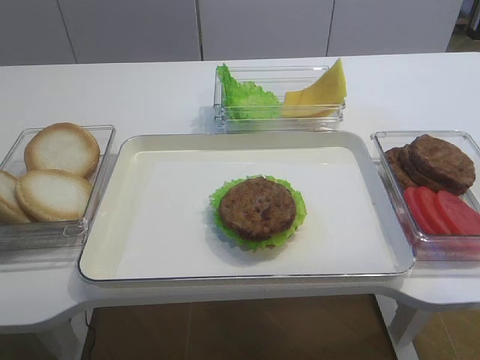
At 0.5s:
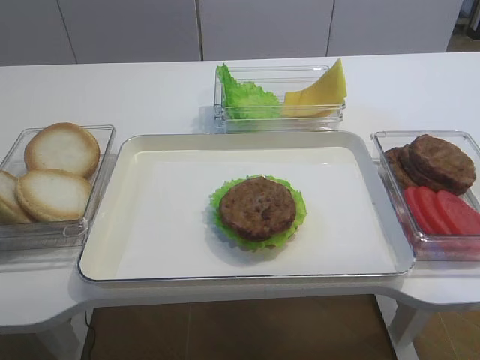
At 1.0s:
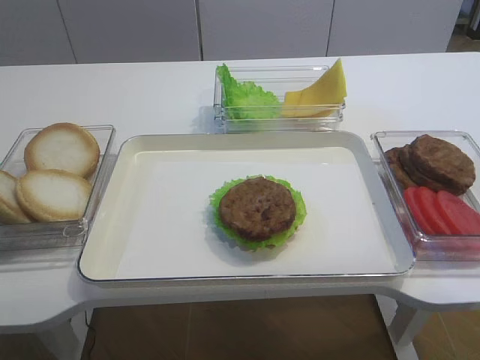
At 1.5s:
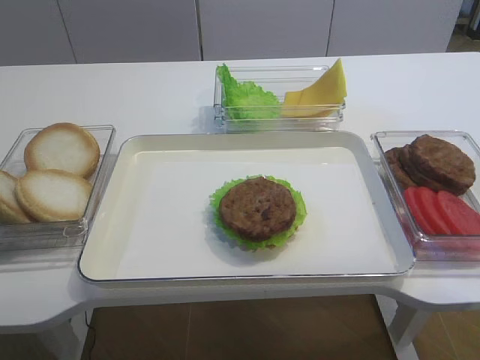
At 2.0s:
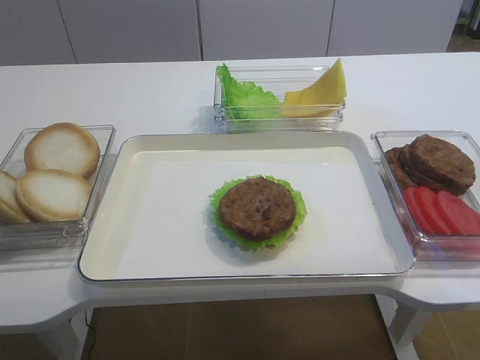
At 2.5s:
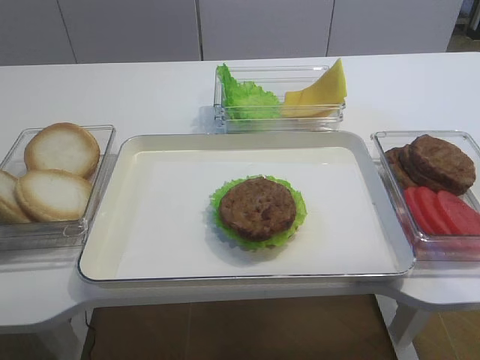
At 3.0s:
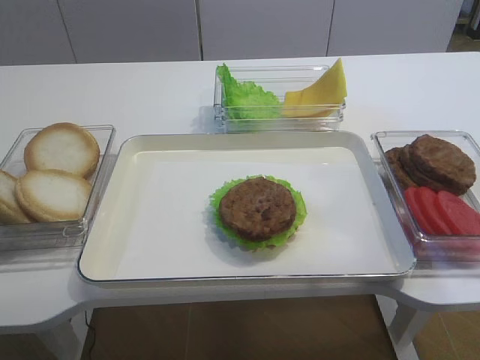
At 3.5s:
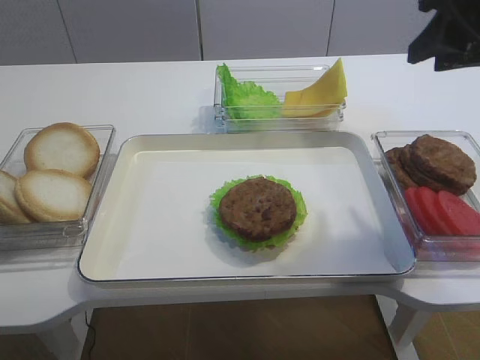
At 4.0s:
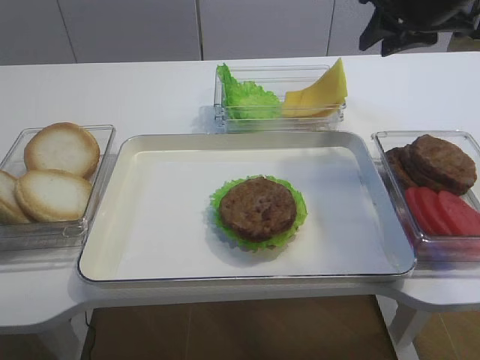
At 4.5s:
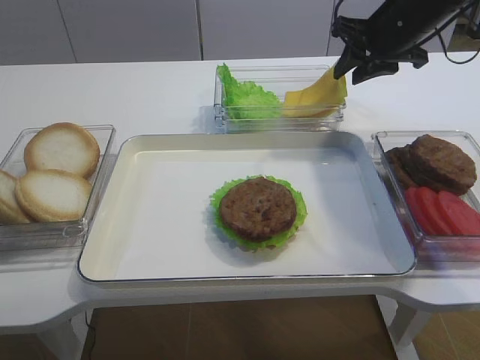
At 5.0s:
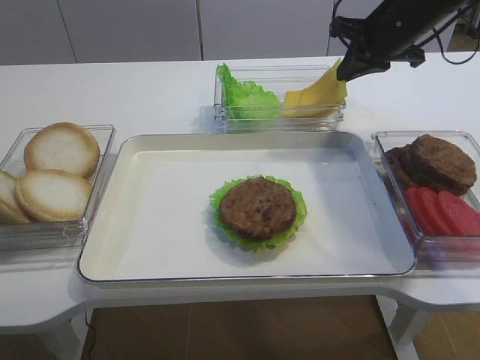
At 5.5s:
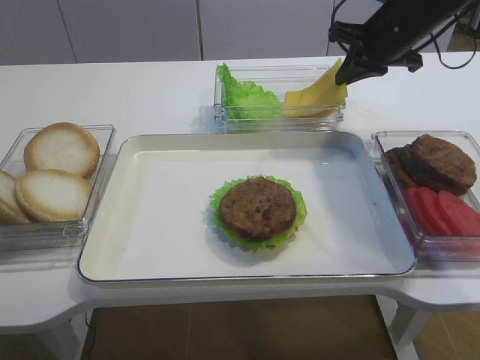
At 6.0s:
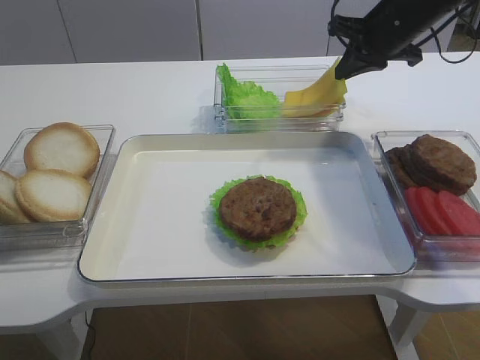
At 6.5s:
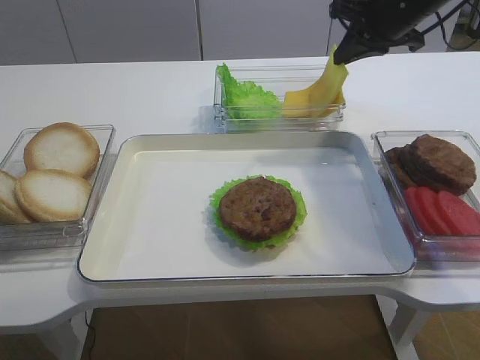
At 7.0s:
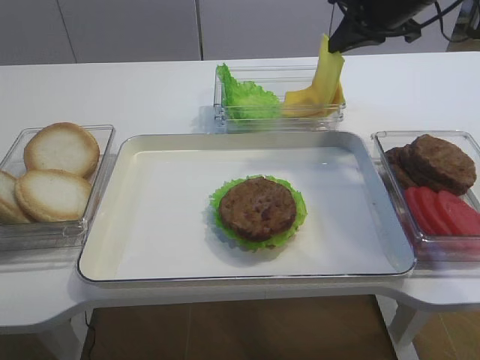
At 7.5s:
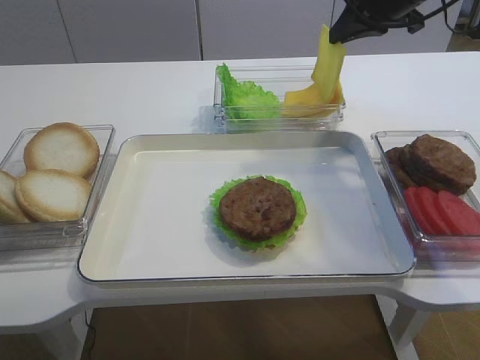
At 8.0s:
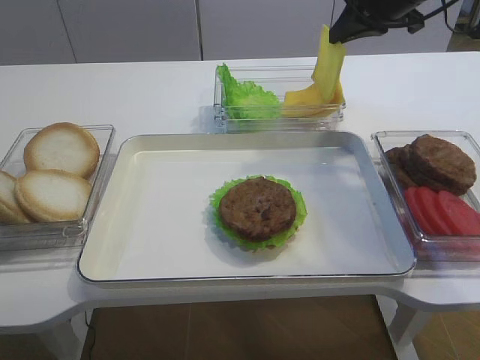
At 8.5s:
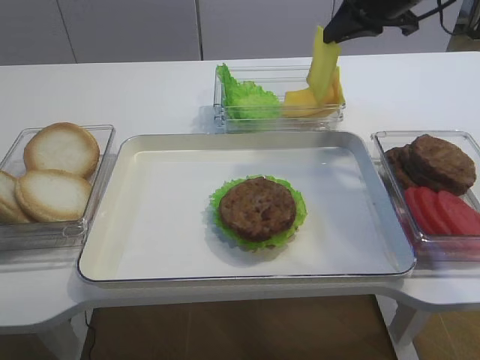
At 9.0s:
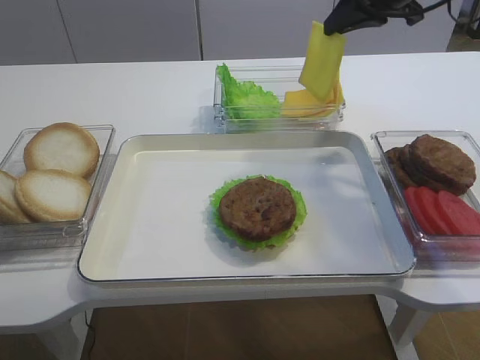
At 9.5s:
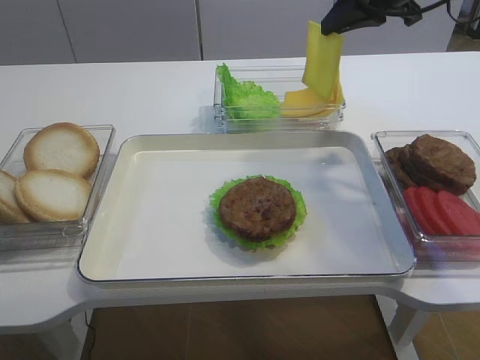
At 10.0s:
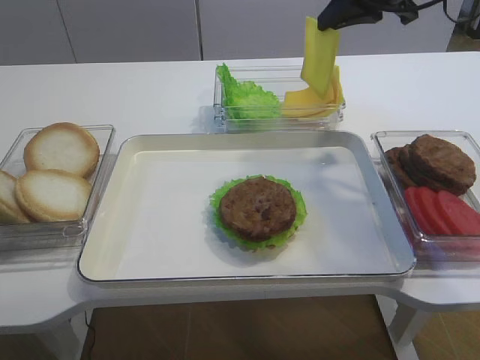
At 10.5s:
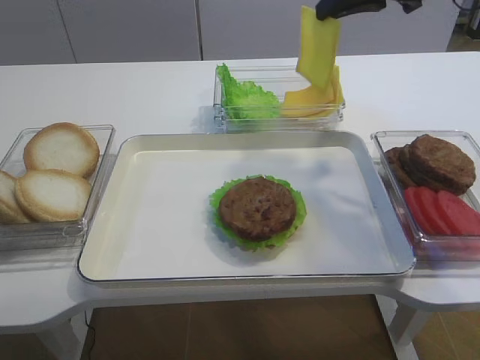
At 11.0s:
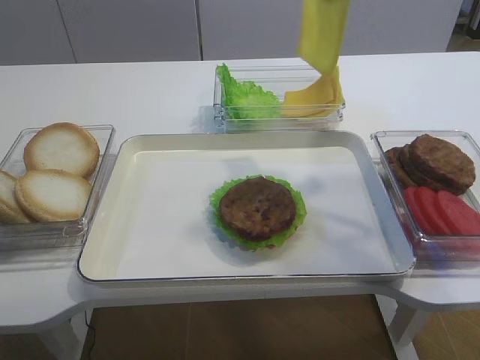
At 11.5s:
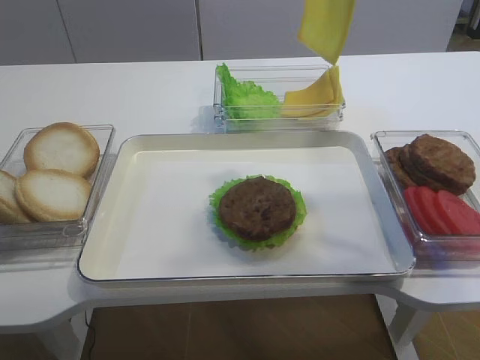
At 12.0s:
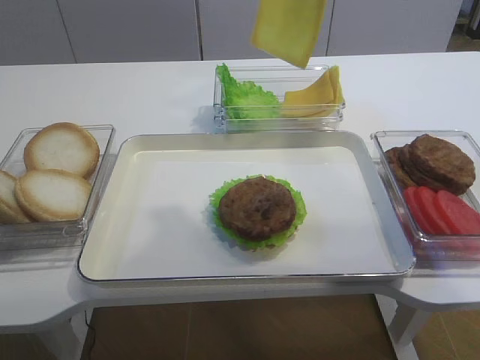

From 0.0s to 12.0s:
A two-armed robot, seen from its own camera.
Step, from 0.0s to 6.0s: Pick up the cheese slice with the right gripper.
From 2.0s to 4.0s: The right gripper shifts roughly 40 cm forward.
From 4.0s to 6.0s: The right gripper moves forward and downward, roughly 10 cm, and closes its fingers.
From 6.0s to 8.0s: The right gripper ends up approximately 5 cm from where it was.
From 8.0s to 10.0s: The grippers move only a little.
From 10.0s to 12.0s: The right gripper goes about 15 cm backward and upward.

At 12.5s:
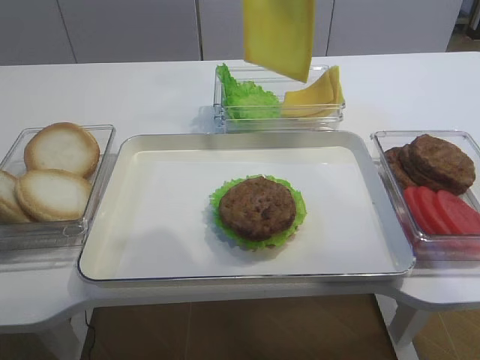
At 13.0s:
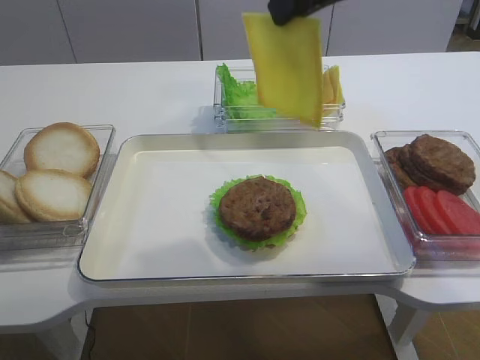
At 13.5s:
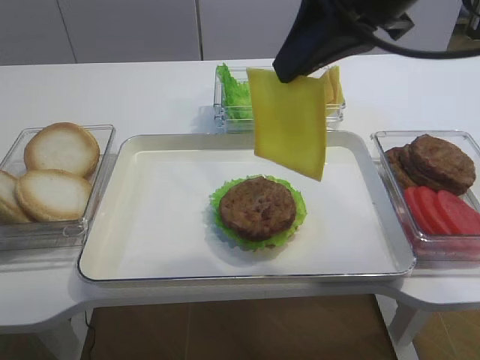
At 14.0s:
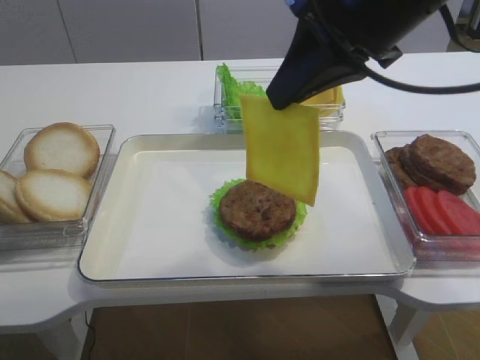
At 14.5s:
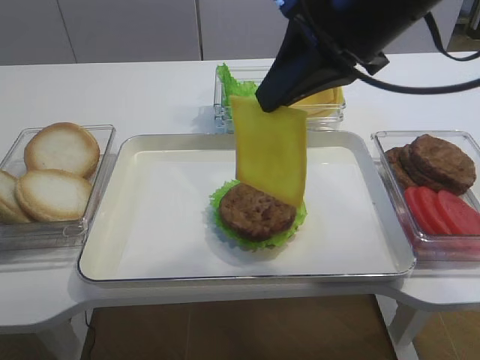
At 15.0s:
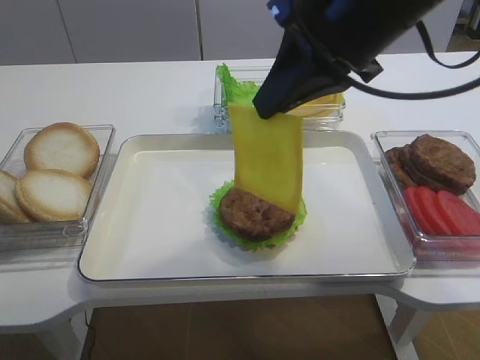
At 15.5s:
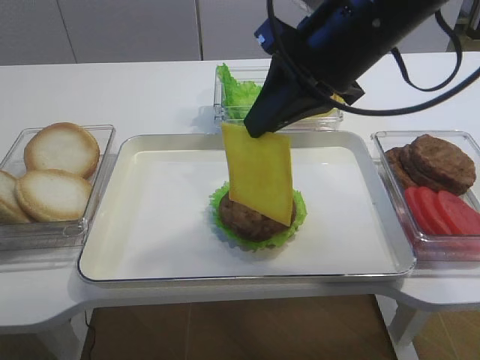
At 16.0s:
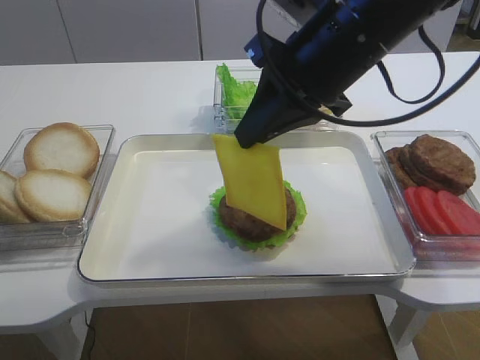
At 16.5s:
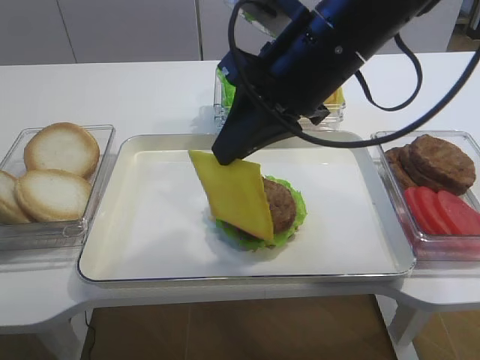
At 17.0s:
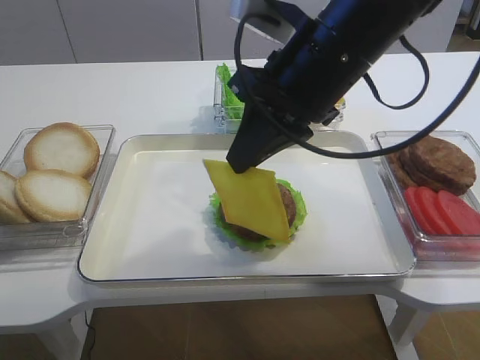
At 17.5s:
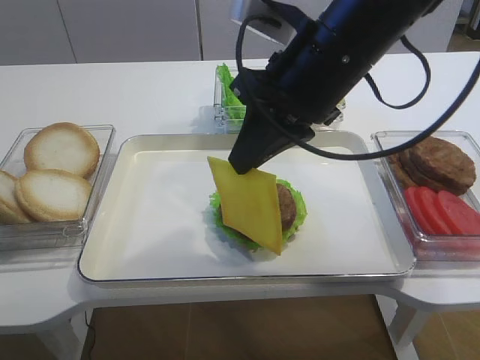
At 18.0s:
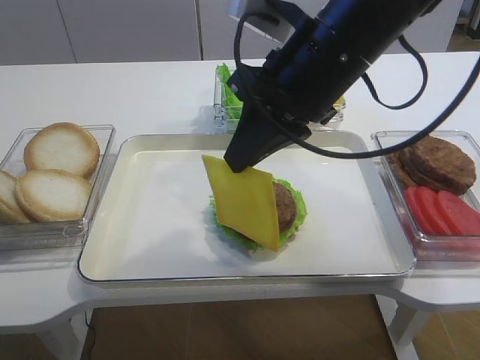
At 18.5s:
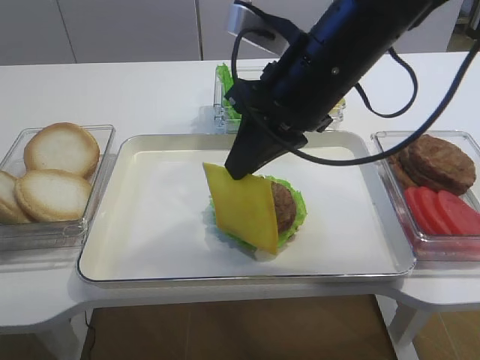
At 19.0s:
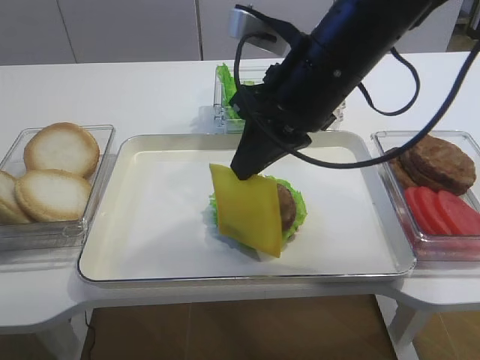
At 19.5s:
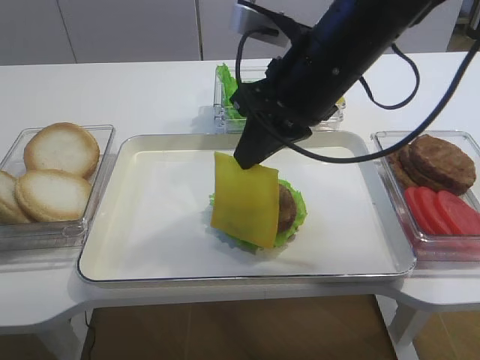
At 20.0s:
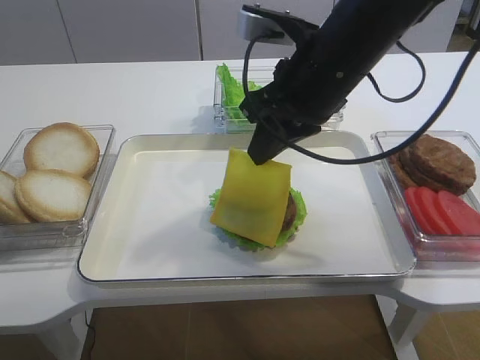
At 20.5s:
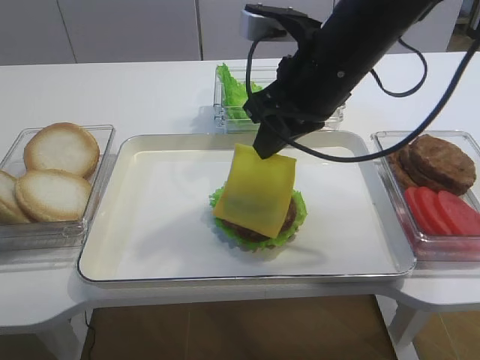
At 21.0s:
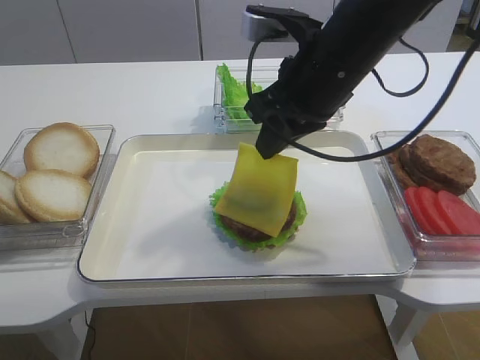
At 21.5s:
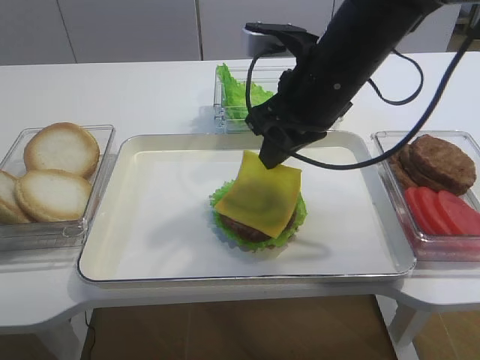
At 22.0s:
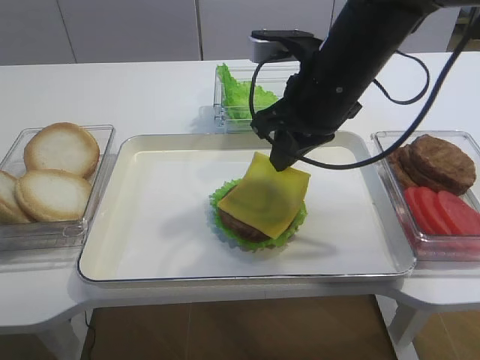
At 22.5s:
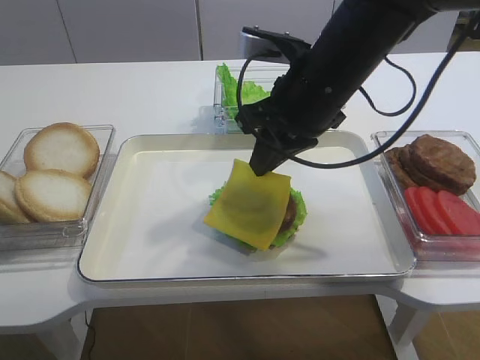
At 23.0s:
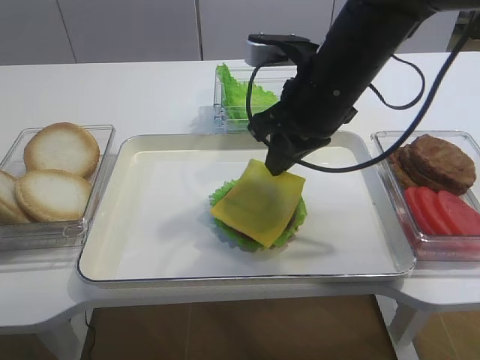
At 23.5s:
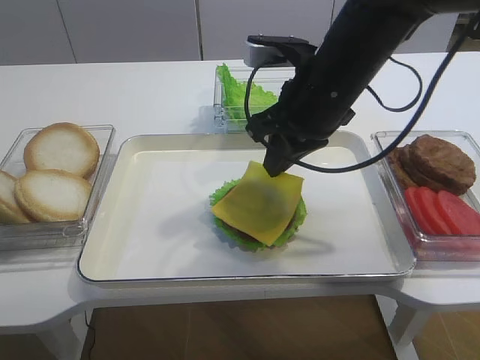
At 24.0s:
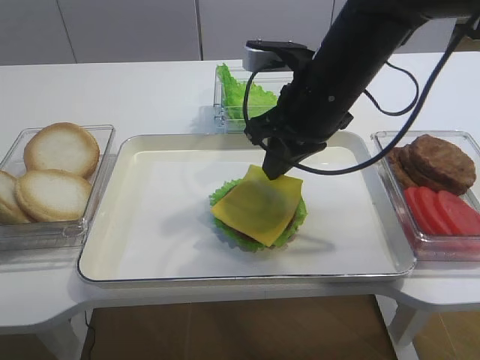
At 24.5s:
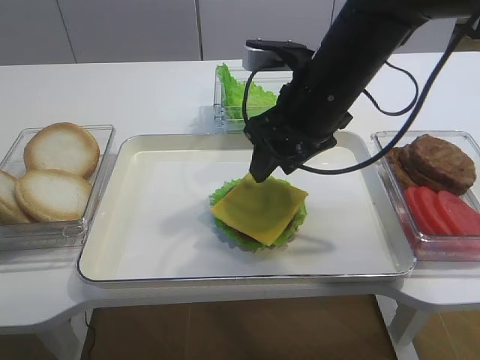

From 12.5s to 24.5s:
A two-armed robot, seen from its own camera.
From 12.5s to 14.5s: The right gripper shifts about 10 cm downward.
From 14.5s to 16.5s: The right gripper moves about 5 cm.
From 16.5s to 18.5s: The grippers move only a little.
From 18.5s to 20.5s: The grippers move only a little.
From 20.5s to 22.5s: The grippers move only a little.
From 22.5s to 24.5s: The right gripper opens its fingers.

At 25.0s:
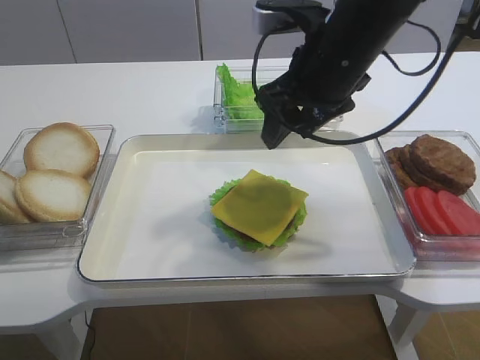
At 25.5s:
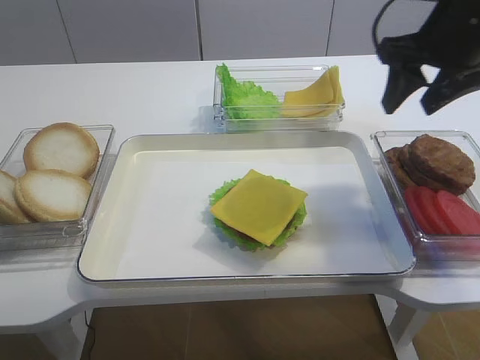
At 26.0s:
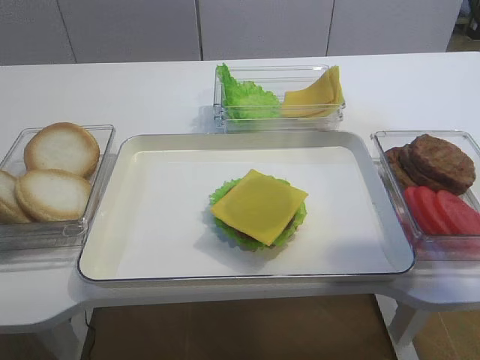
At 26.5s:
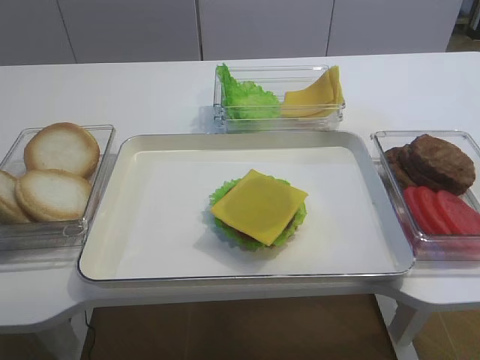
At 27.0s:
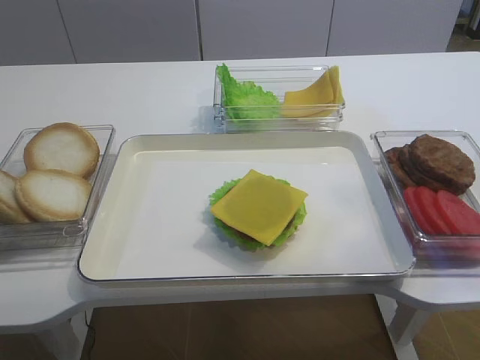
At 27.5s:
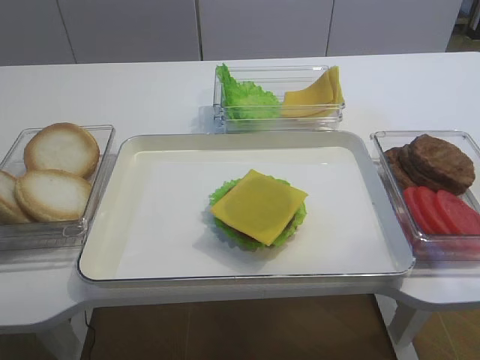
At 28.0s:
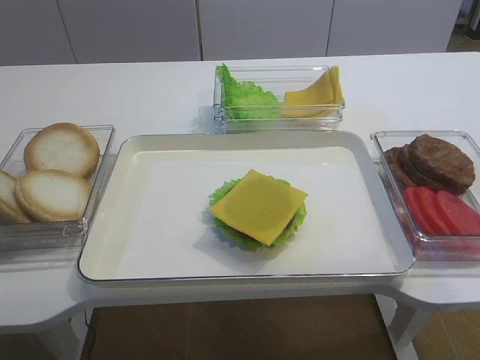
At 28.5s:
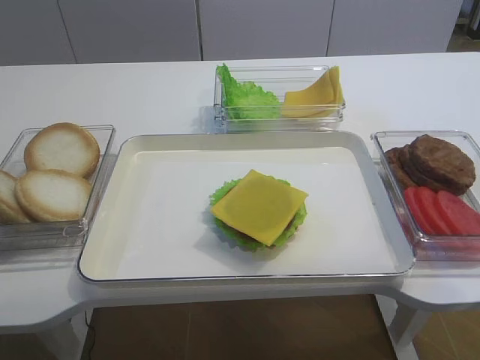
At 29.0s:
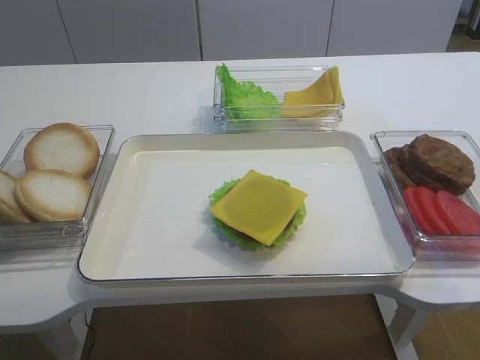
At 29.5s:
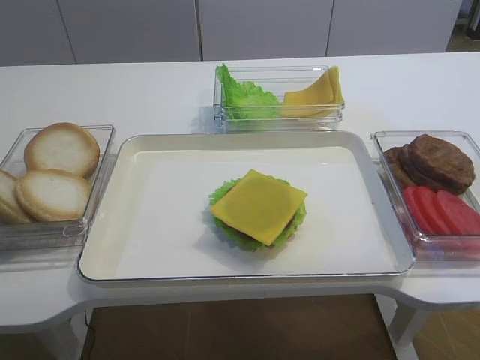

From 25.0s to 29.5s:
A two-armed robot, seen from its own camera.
From 25.0s to 27.0s: The right gripper moves backward and to the right, about 30 cm.
From 27.0s to 29.5s: The right gripper heads backward and downward, covering approximately 10 cm.
